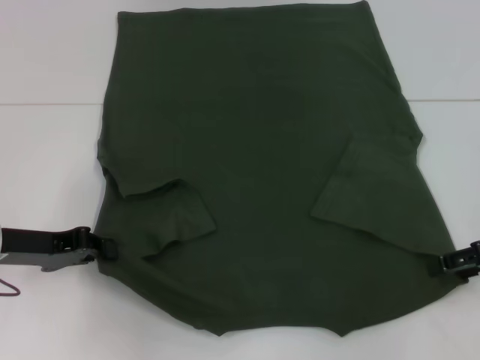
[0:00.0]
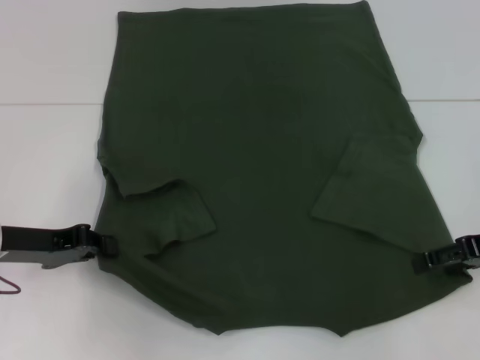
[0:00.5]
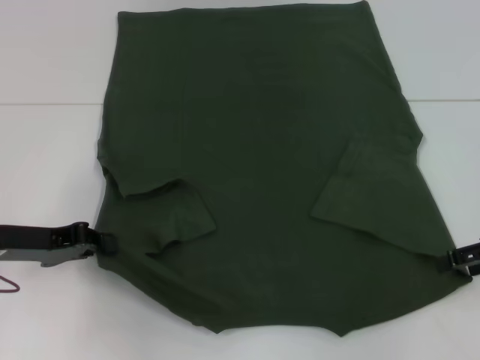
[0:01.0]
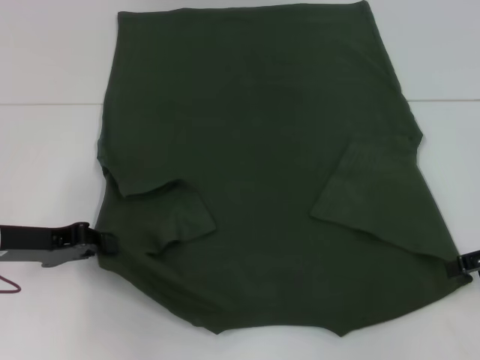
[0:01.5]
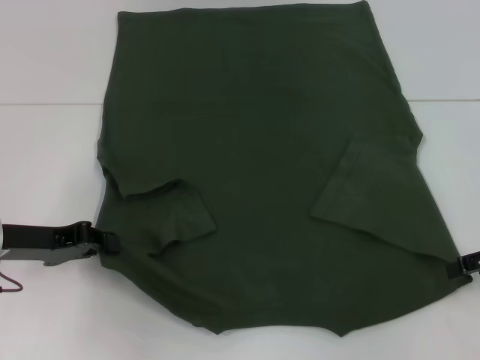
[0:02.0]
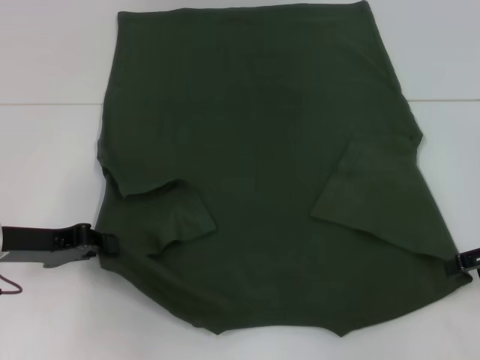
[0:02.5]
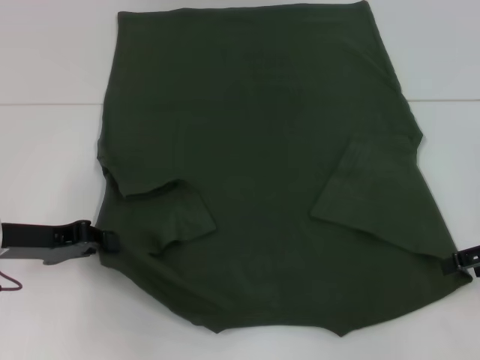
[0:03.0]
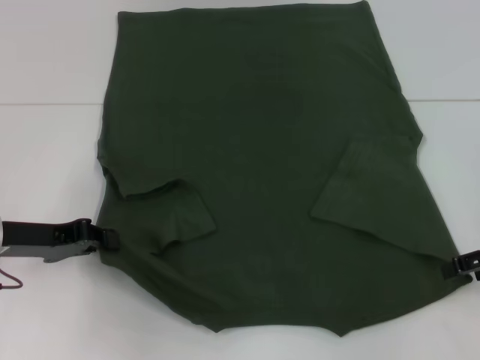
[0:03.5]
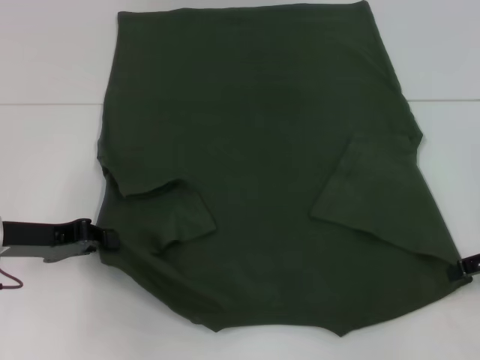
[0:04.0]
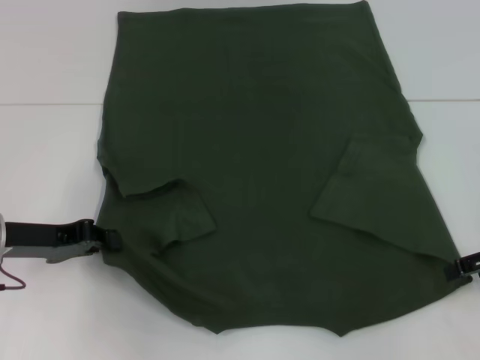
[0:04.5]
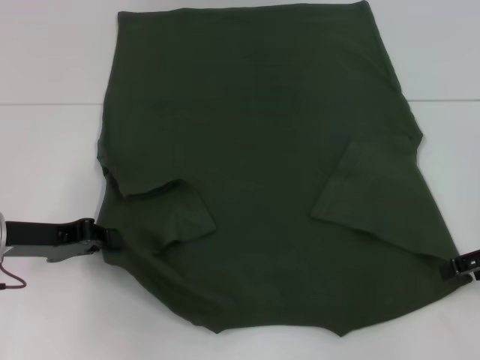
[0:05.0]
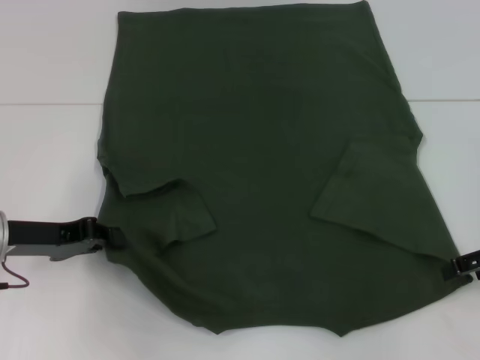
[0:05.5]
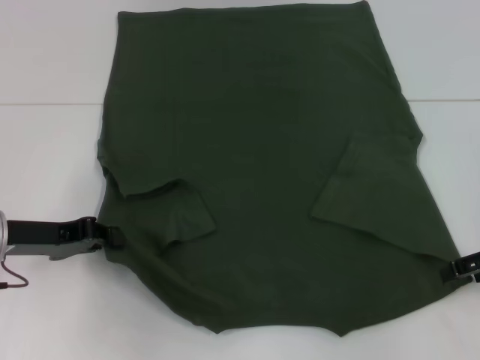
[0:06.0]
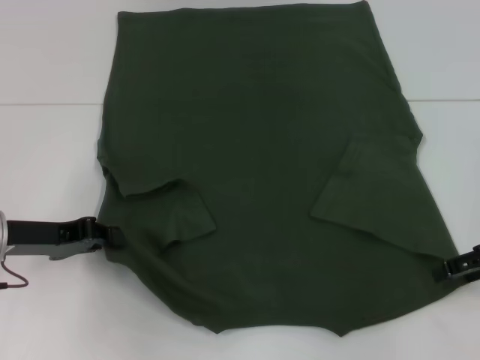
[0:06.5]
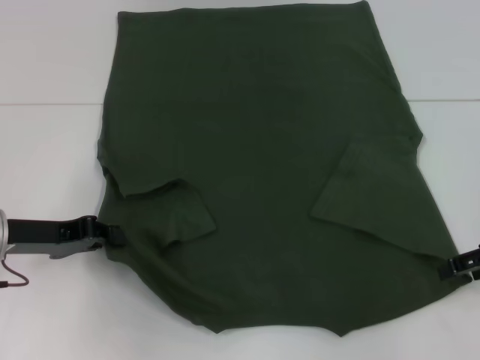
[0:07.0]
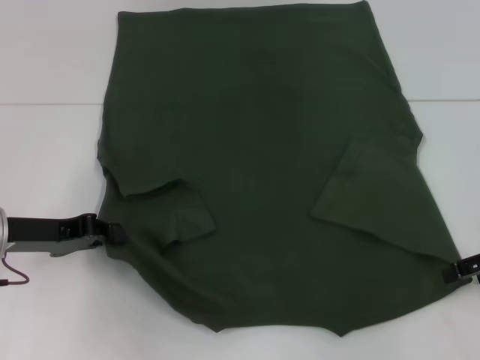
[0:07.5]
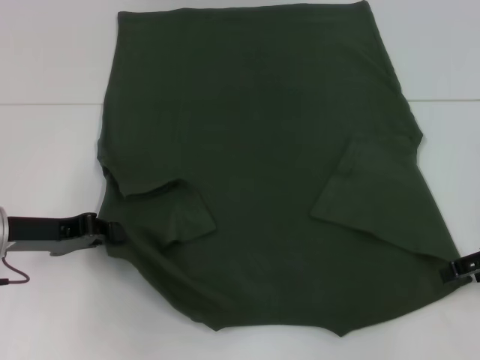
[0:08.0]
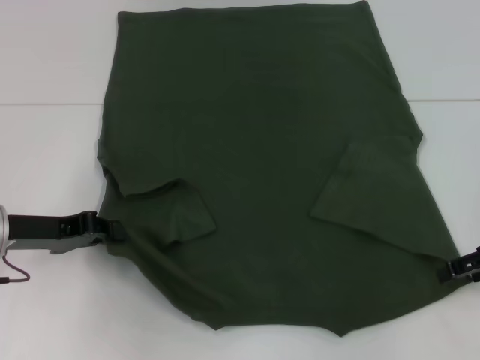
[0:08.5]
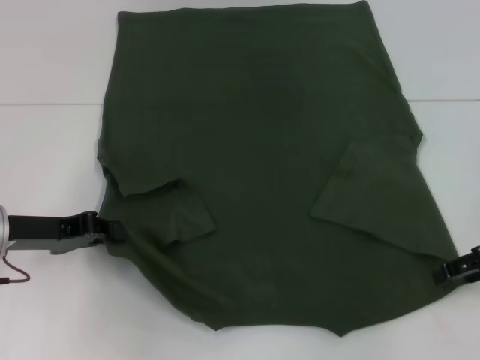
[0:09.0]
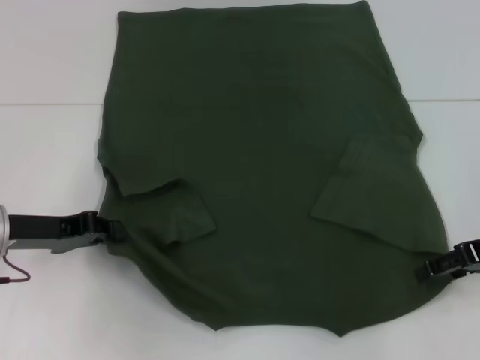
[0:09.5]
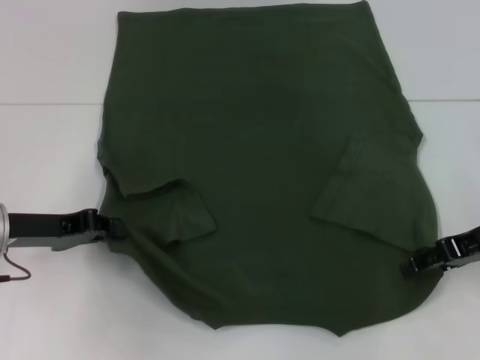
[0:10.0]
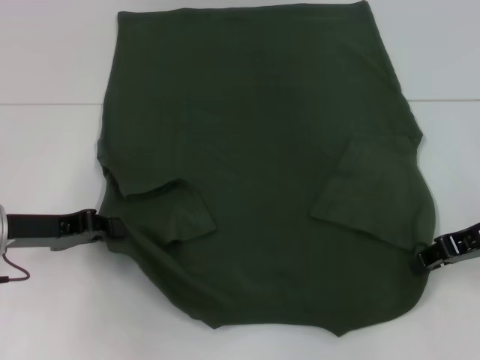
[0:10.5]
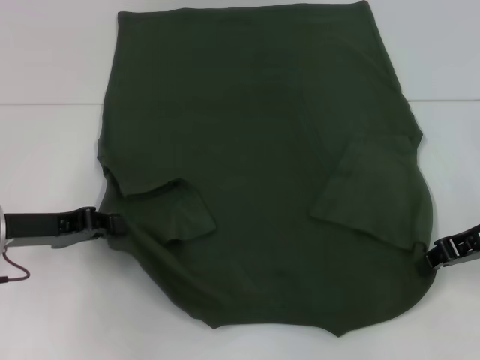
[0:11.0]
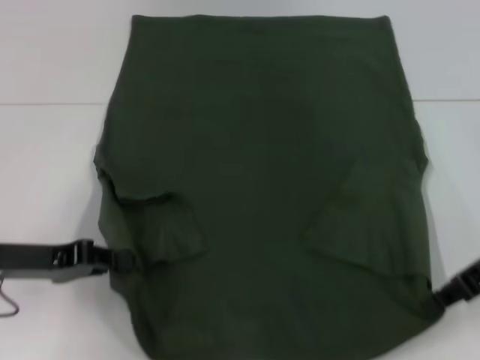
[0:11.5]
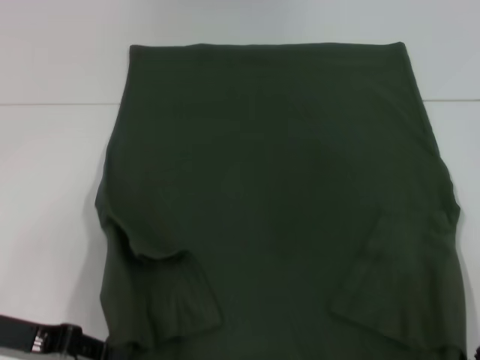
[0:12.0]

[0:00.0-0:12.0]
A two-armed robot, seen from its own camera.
Step, 0.0 to 11.0 s: Grab the bottom right corner with your right hand.
0.0 to 2.0 s: There are only small adjustments of the grippers.
2.0 to 6.0 s: Neither gripper changes place.
6.0 to 8.0 s: Neither gripper changes place.
8.0 to 10.0 s: There are only small adjustments of the grippers.
10.0 to 12.0 s: The two grippers go some 5 cm backward. The right gripper closes its fingers.

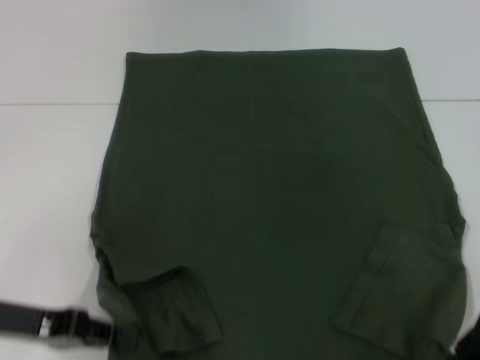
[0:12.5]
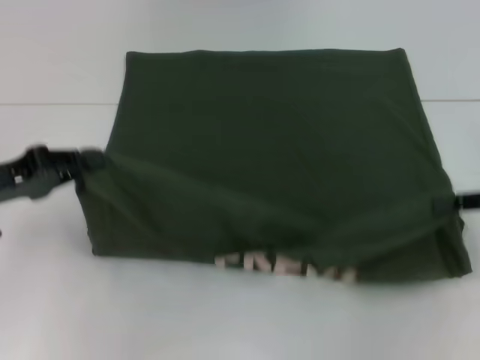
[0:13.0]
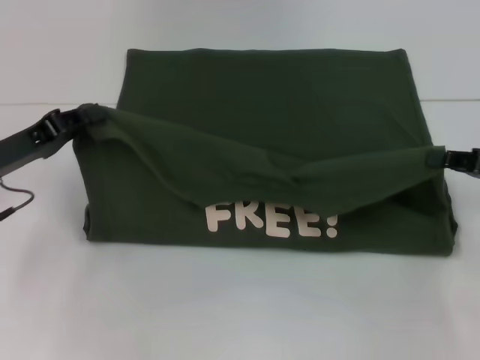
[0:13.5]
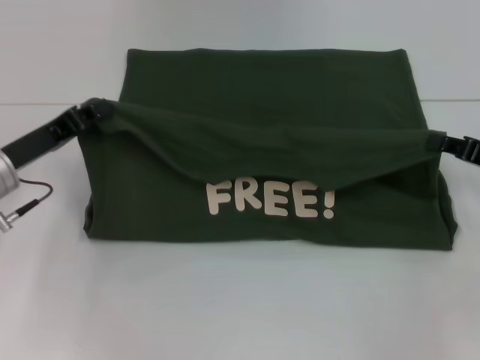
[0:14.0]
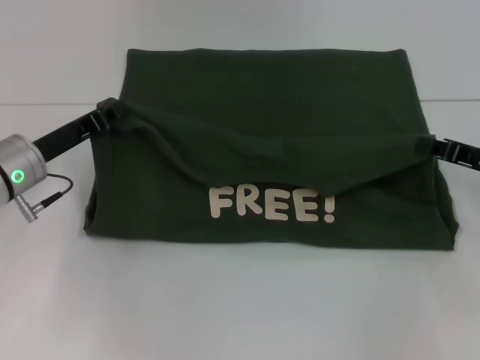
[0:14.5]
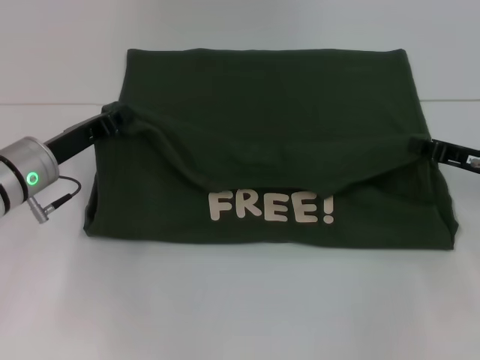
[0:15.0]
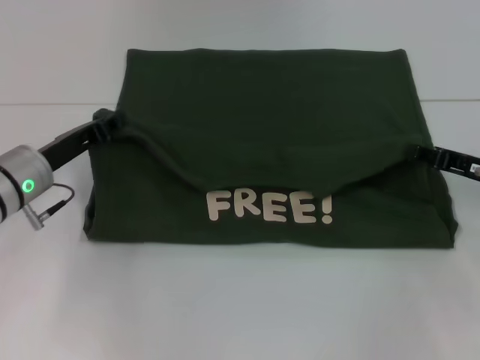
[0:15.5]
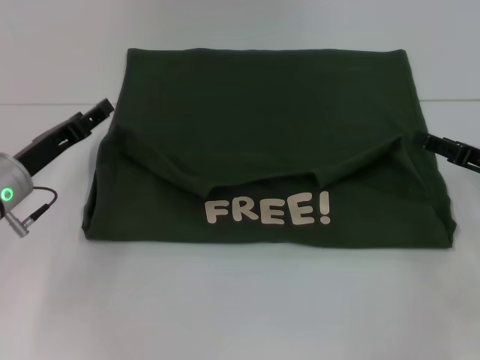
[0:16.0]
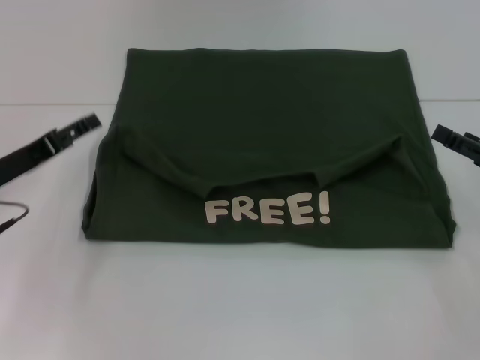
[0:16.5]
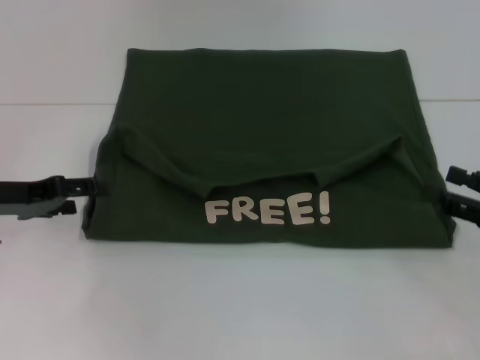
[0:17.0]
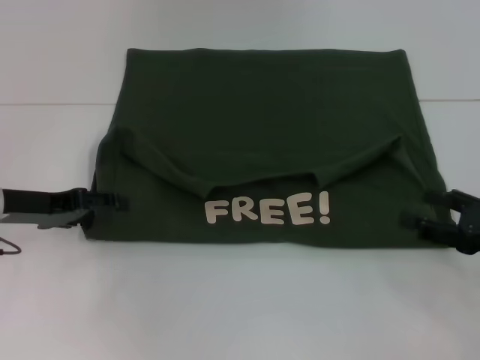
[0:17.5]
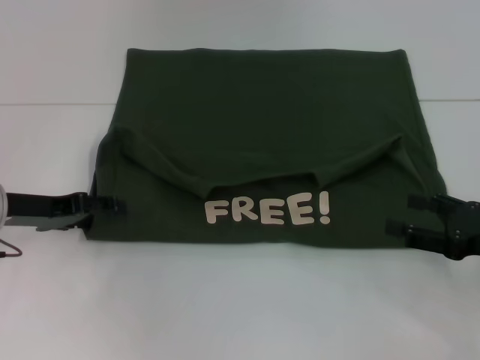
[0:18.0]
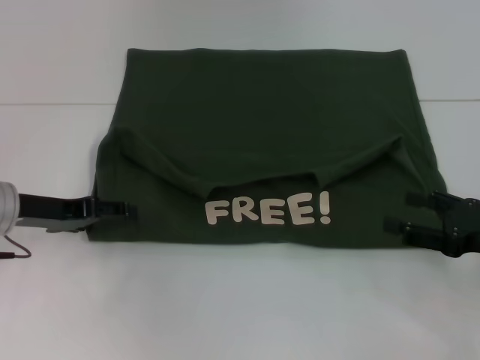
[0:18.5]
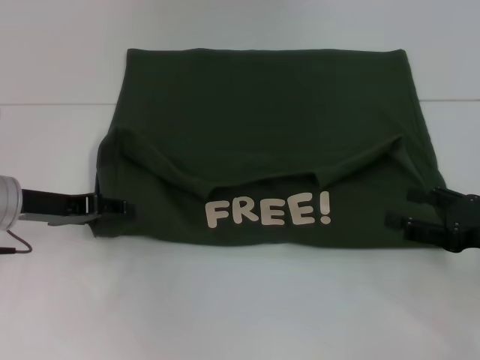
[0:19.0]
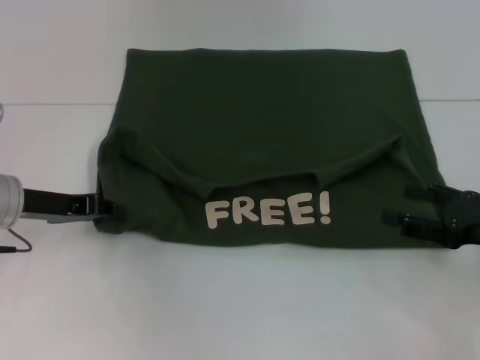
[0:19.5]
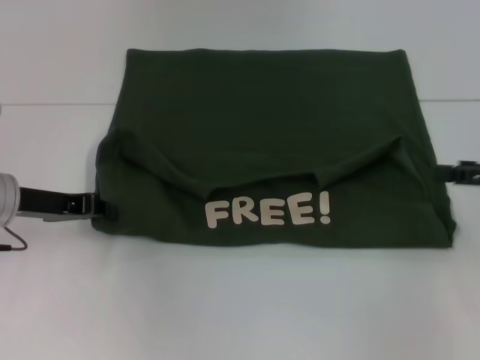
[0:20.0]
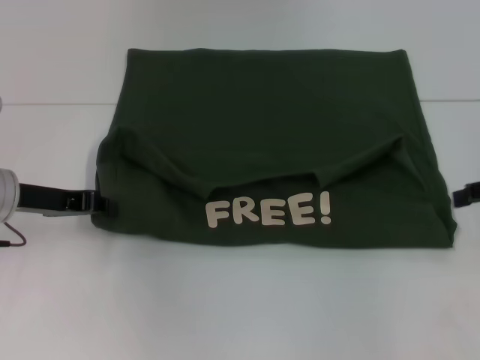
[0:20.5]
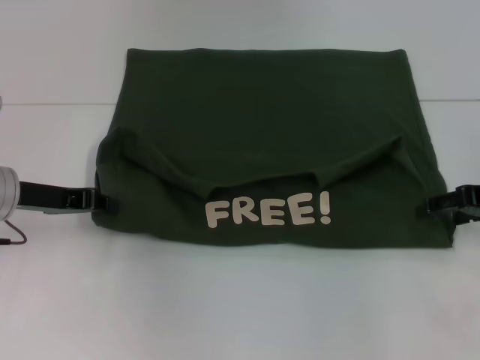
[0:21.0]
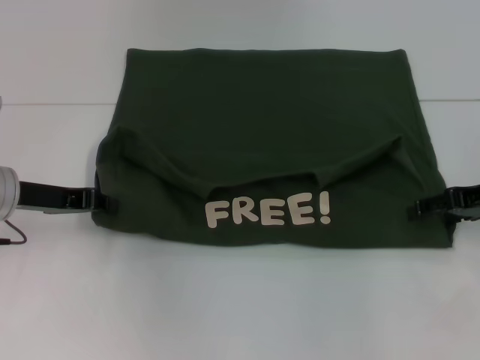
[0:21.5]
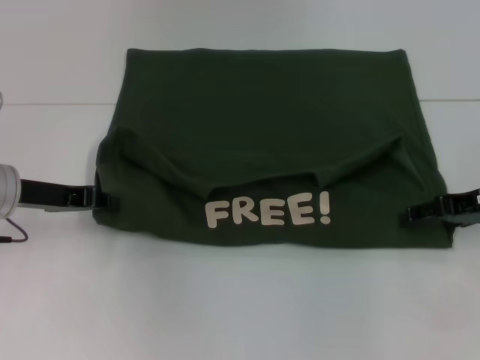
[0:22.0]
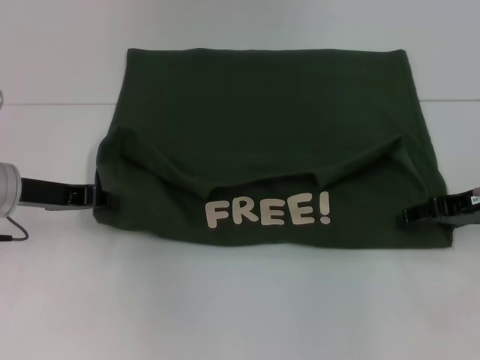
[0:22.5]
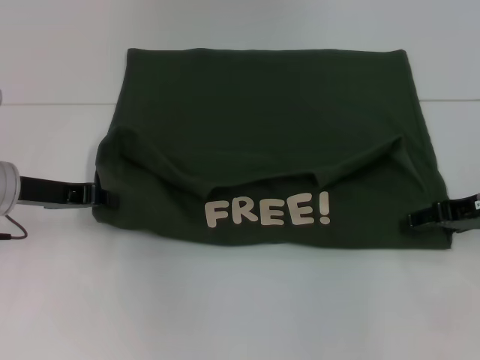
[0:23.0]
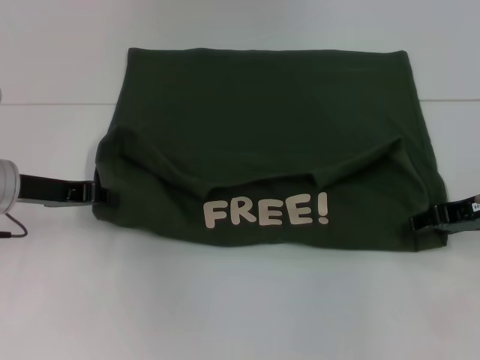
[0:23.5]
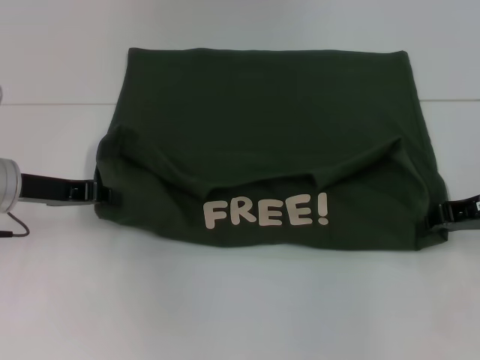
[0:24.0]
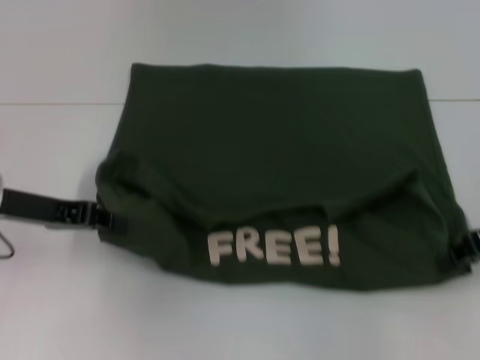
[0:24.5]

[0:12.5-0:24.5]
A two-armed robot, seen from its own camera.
Step, 12.5 to 16.0 s: Fold the clothes with your left hand.
Step, 12.5 to 16.0 s: Fold the clothes with your right hand.
12.5 to 14.5 s: The right gripper moves forward, approximately 5 cm. The left gripper shifts roughly 10 cm forward.
14.5 to 16.5 s: The left gripper shifts by approximately 5 cm, and opens its fingers, while the right gripper opens its fingers.
18.5 to 20.5 s: The right gripper travels upward and forward by approximately 10 cm; the left gripper closes its fingers.
20.5 to 22.5 s: The right gripper goes about 10 cm to the left and downward.
22.5 to 24.5 s: The right gripper closes up.

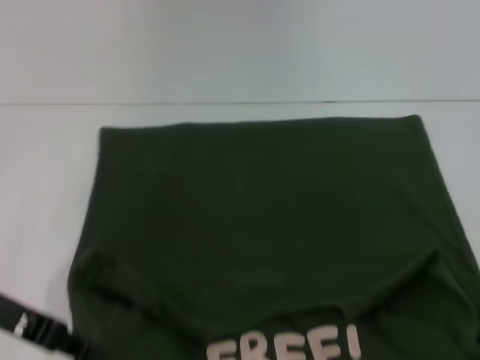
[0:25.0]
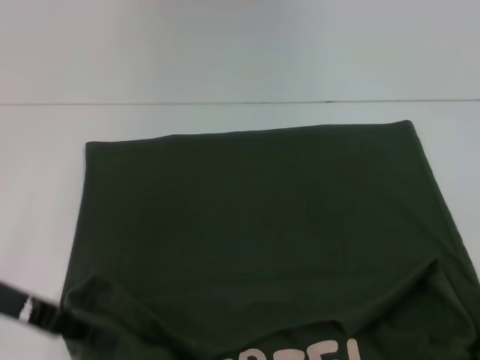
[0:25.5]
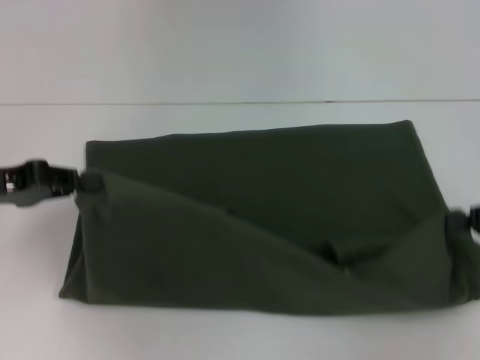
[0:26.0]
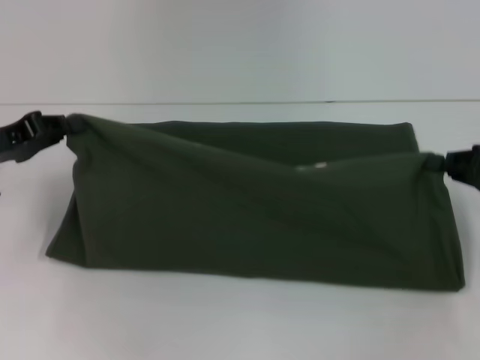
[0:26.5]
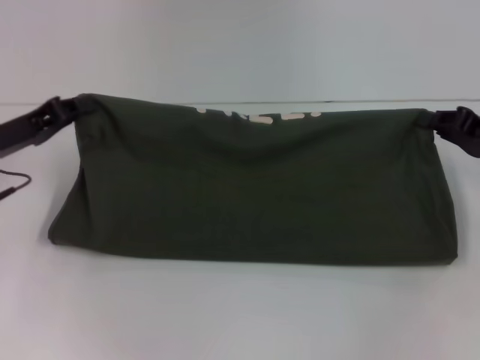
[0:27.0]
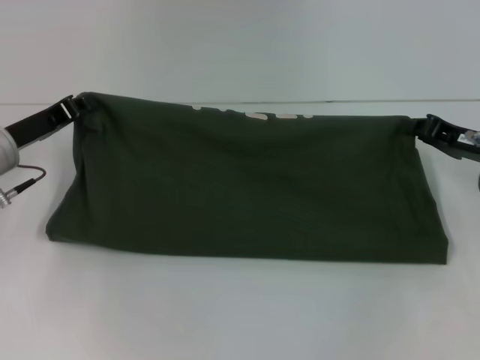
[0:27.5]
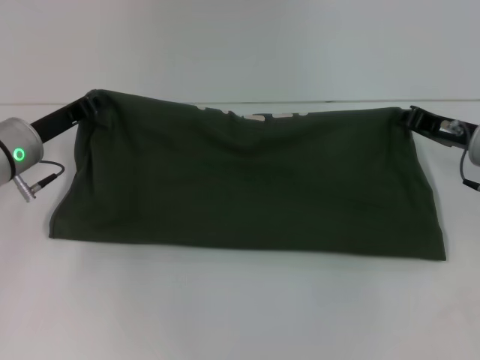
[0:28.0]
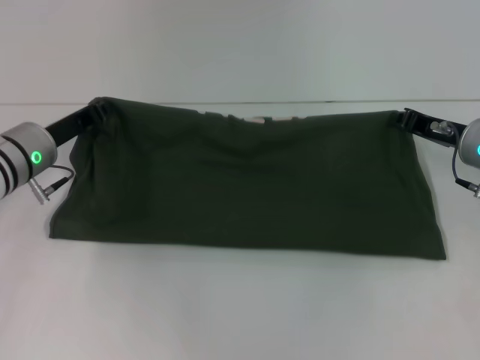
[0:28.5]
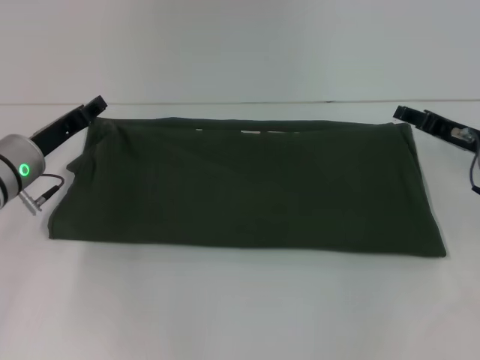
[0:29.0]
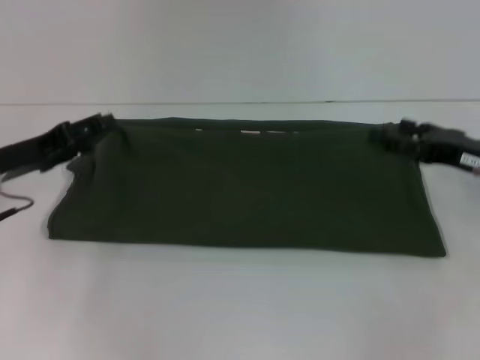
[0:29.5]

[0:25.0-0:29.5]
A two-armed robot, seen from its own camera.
Step, 25.5 to 29.0 s: Fold the clothes with your right hand.
25.0 to 27.0 s: The grippers both shift forward by roughly 10 cm.
27.0 to 29.5 s: The left gripper opens up. Meanwhile the right gripper opens its fingers.
